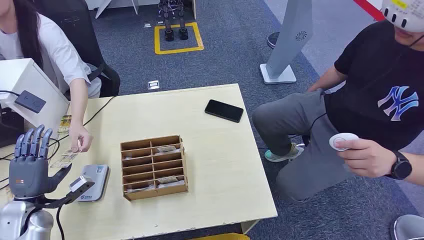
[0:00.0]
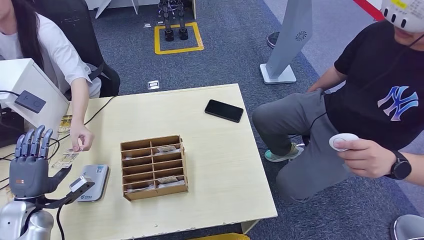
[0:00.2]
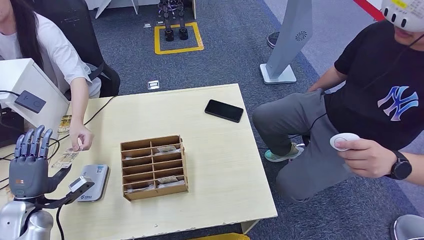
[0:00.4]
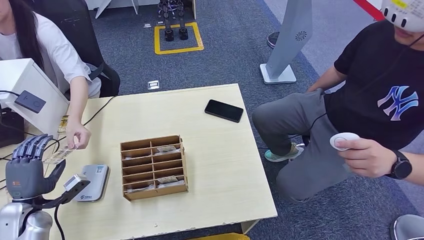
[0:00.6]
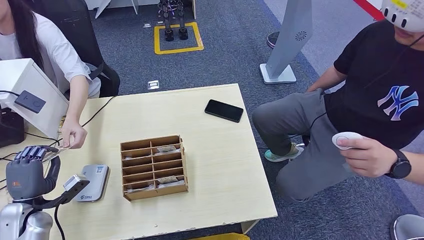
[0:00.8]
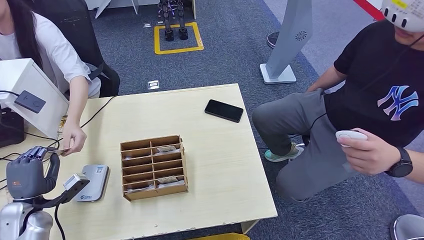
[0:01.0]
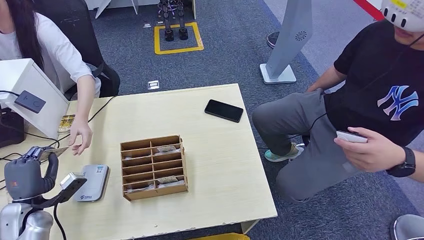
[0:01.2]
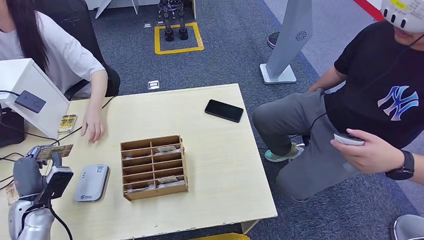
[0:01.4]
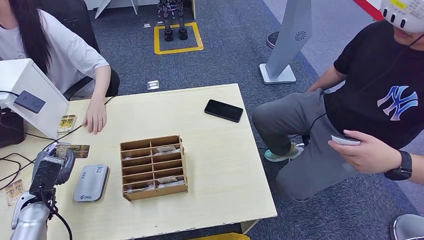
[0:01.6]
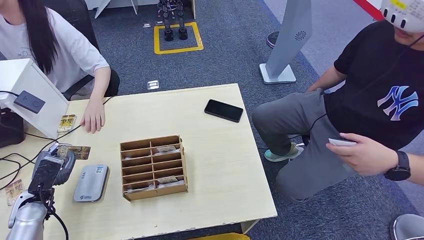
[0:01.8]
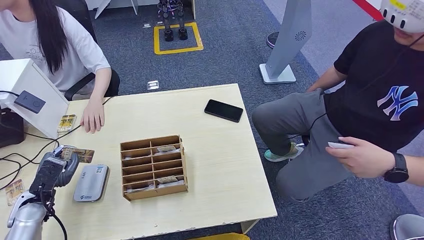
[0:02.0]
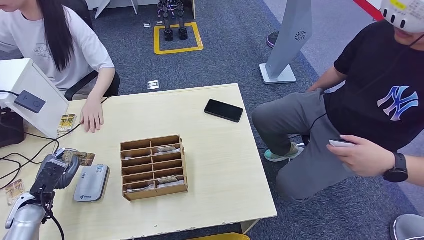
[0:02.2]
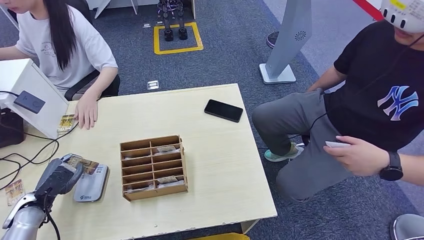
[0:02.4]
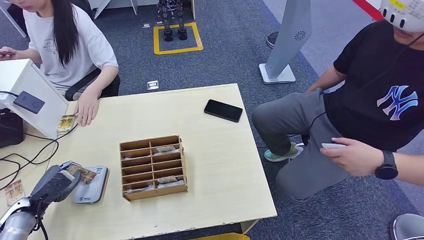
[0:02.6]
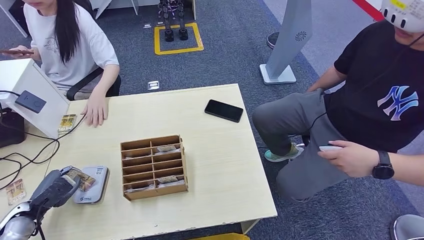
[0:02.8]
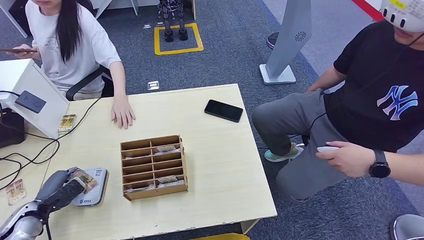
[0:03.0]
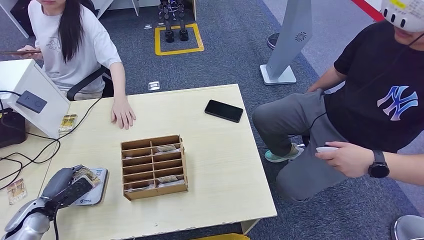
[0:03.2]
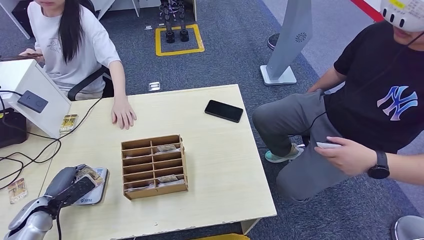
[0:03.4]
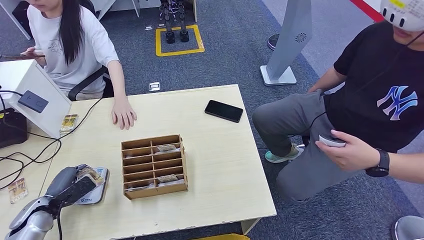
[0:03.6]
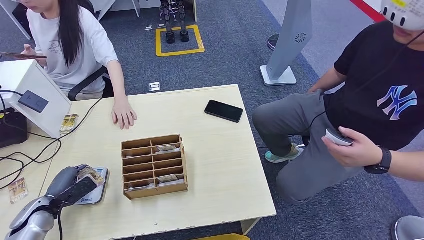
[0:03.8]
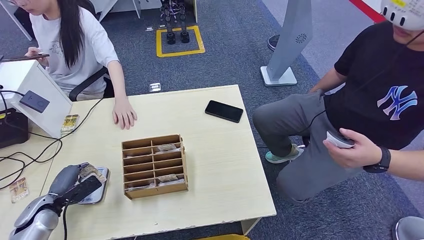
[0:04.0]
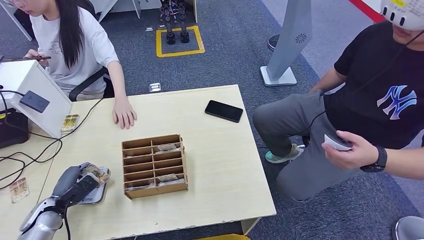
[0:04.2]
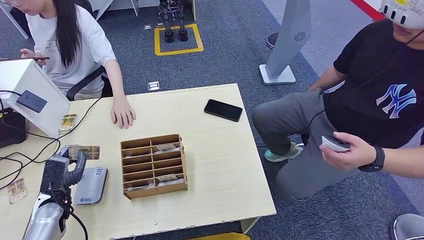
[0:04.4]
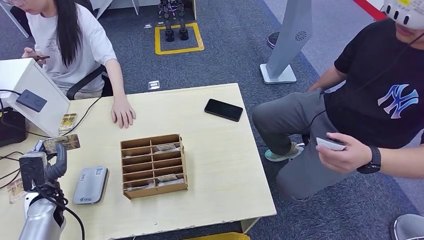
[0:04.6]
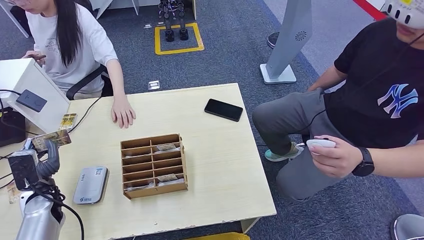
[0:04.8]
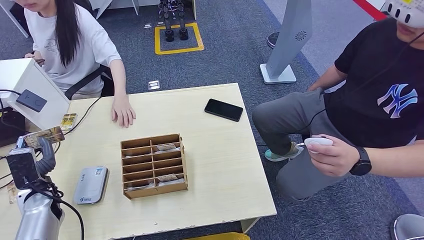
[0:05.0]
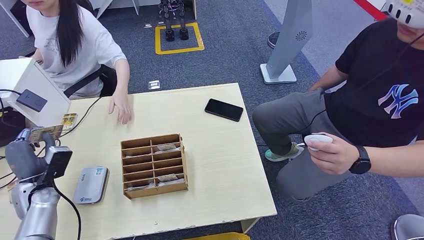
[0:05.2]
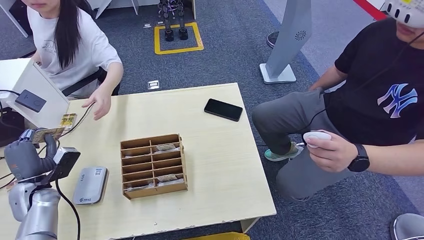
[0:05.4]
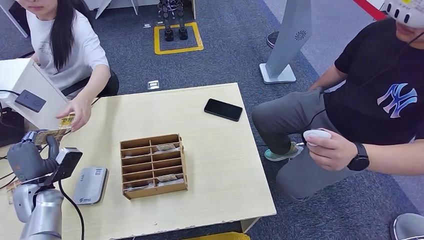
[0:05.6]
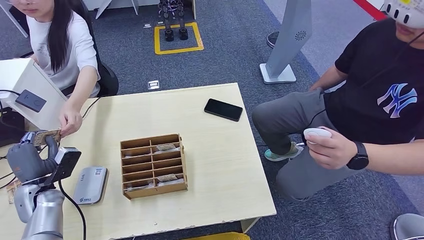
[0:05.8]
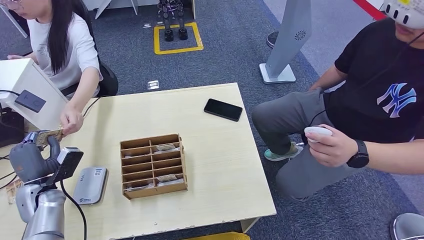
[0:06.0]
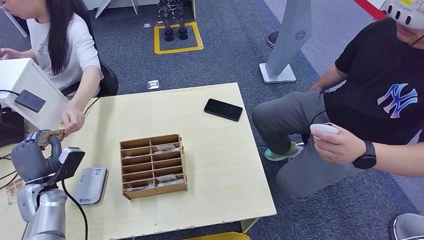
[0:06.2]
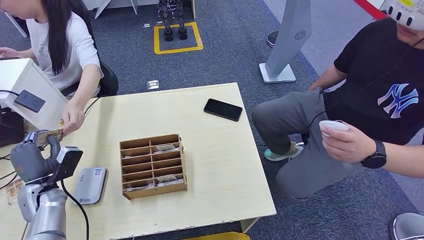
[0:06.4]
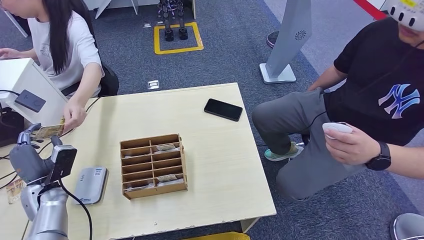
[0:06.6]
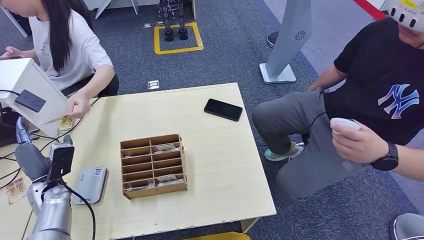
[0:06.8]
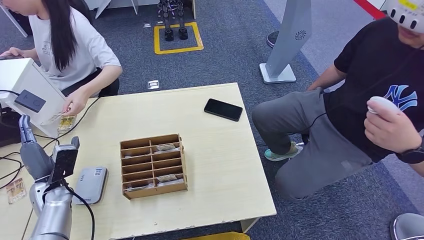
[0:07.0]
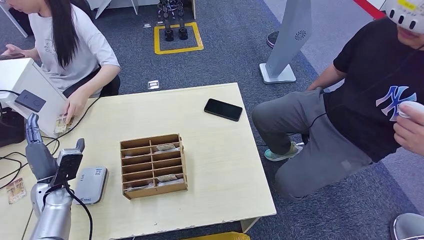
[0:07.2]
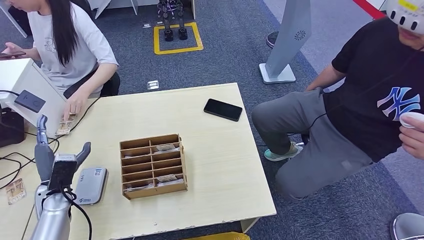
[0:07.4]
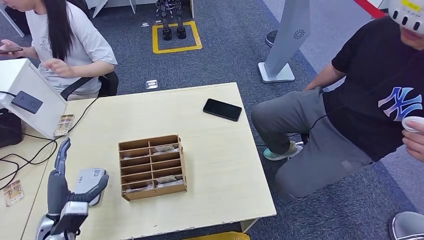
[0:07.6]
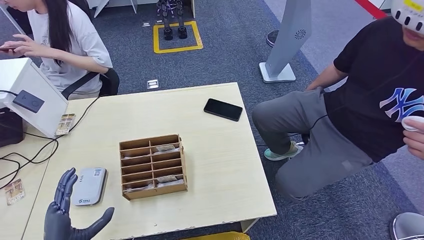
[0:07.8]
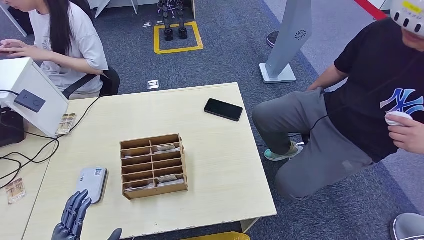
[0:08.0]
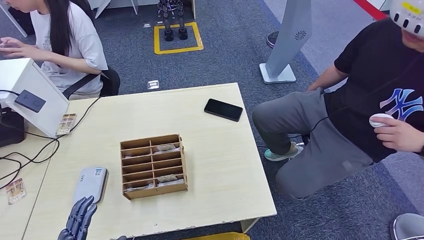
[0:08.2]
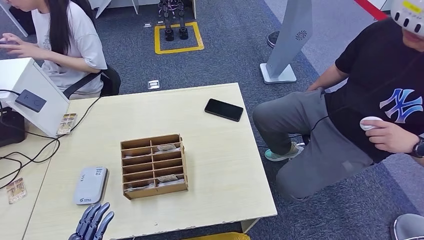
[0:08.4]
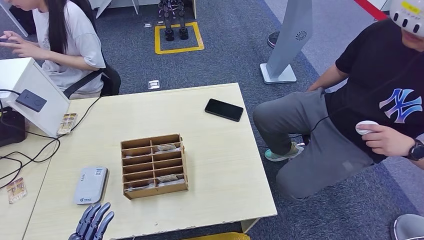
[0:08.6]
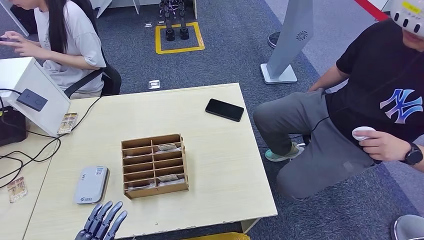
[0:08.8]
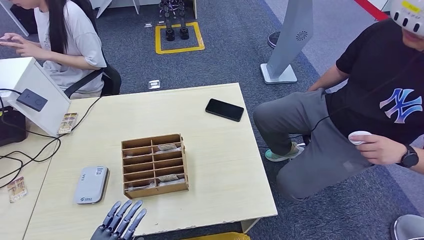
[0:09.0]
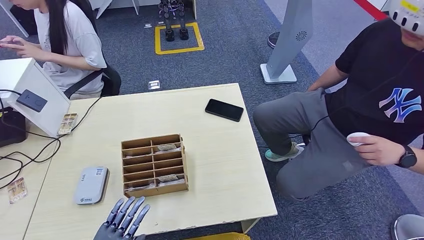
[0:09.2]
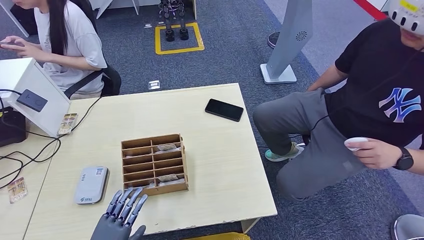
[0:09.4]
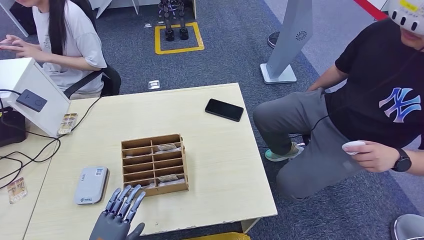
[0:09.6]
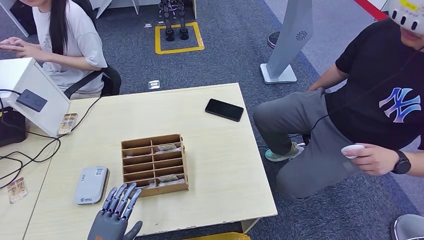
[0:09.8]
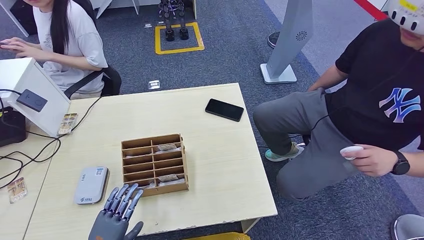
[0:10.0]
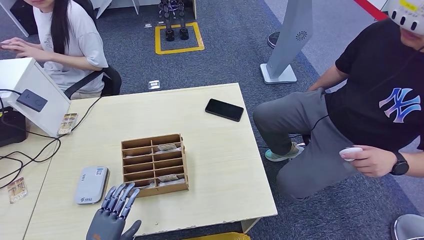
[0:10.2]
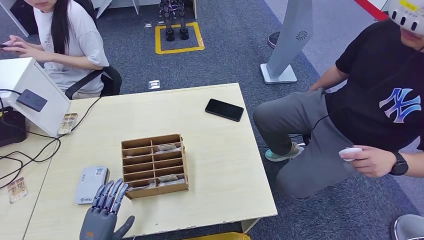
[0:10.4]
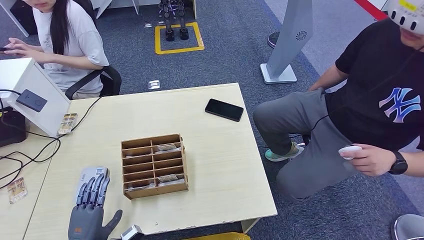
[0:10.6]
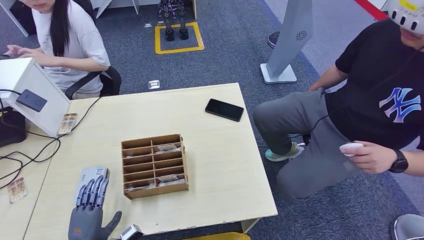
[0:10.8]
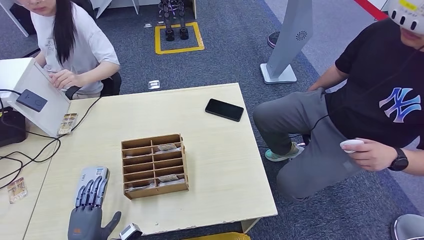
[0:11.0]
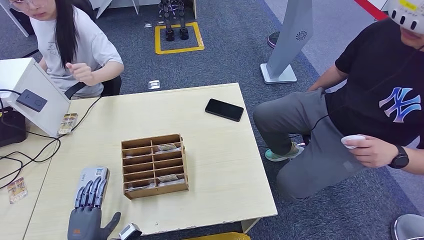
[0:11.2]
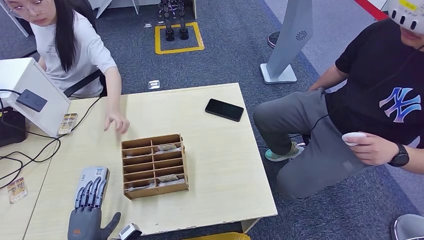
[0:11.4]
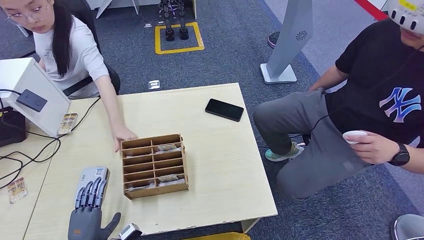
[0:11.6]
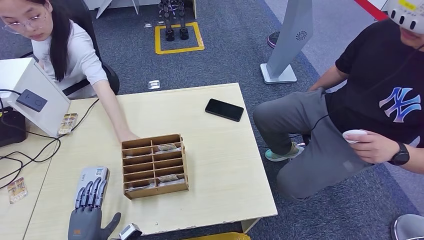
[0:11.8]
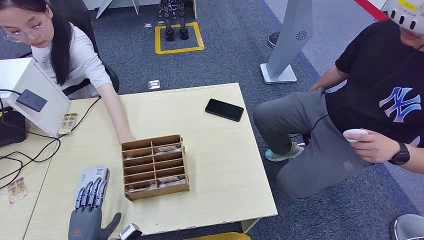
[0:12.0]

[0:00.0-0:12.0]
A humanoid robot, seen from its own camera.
Step, 0:00.0 to 0:01.6: Take the ID card from the person's hand.
Step, 0:02.0 to 0:03.8: Place the ID card on the card reader.
Step, 0:04.2 to 0:06.6: Hand the ID card to the person.
0:01.6 to 0:03.0: The left hand moves roughly 5 cm.
0:03.0 to 0:04.4: The left hand goes some 5 cm to the right.
0:04.4 to 0:06.0: The left hand shifts by approximately 5 cm.
0:09.0 to 0:10.4: The left hand moves forward, approximately 5 cm.
0:10.4 to 0:12.0: The hands make only small movements.

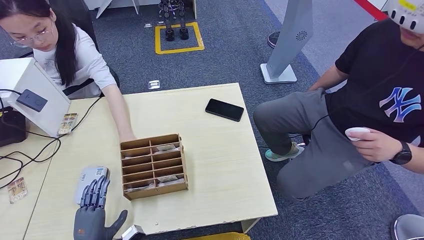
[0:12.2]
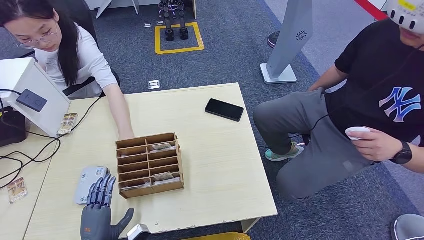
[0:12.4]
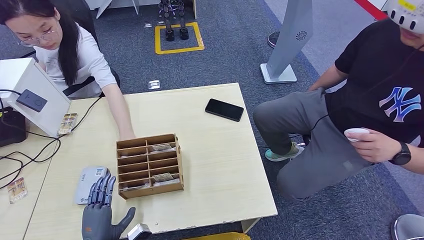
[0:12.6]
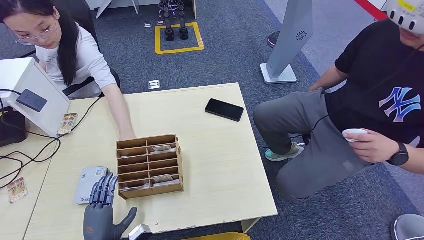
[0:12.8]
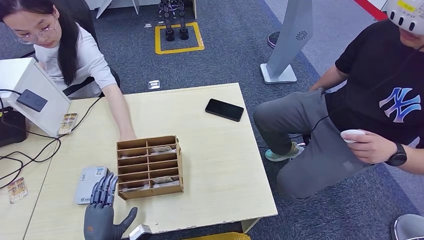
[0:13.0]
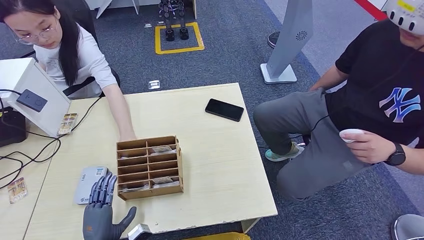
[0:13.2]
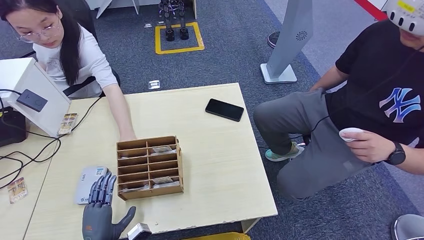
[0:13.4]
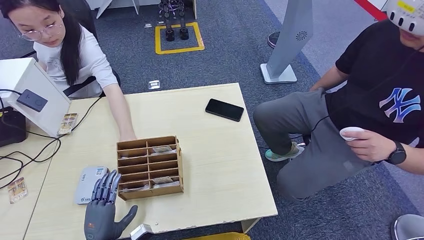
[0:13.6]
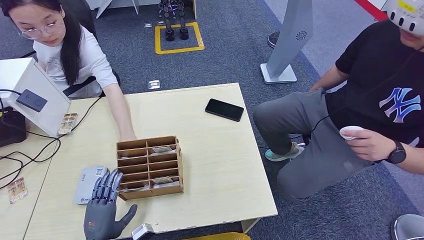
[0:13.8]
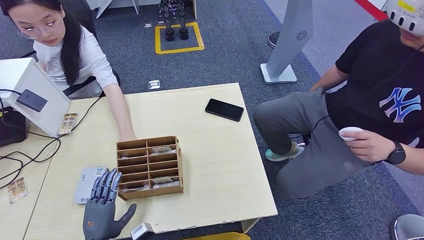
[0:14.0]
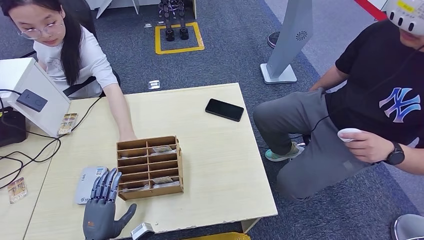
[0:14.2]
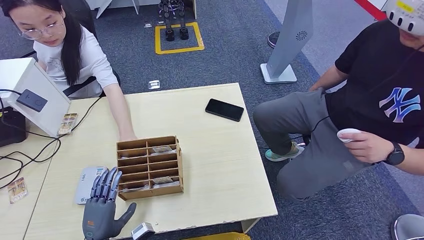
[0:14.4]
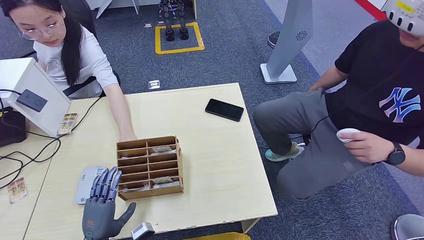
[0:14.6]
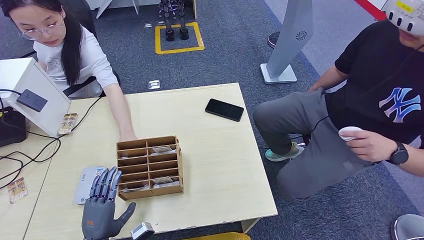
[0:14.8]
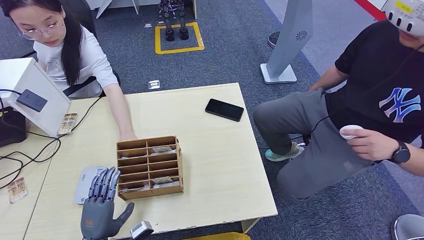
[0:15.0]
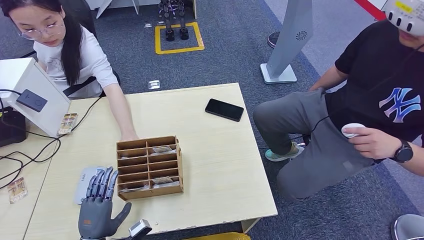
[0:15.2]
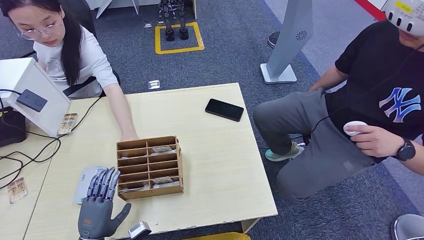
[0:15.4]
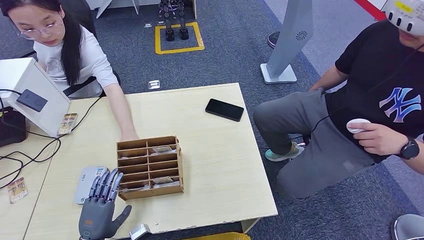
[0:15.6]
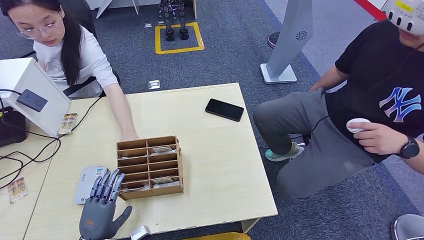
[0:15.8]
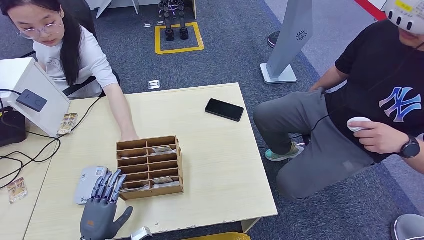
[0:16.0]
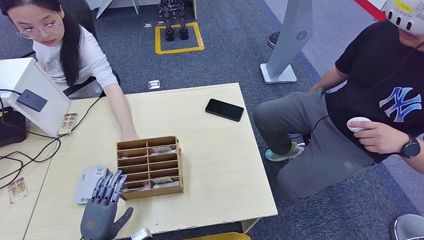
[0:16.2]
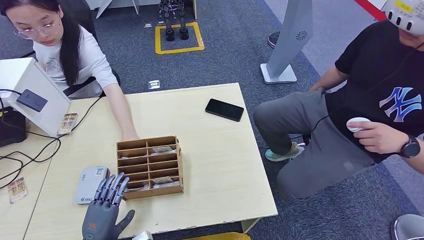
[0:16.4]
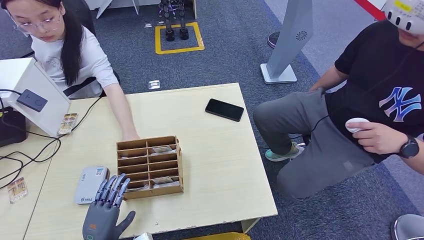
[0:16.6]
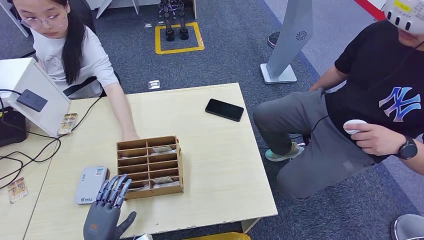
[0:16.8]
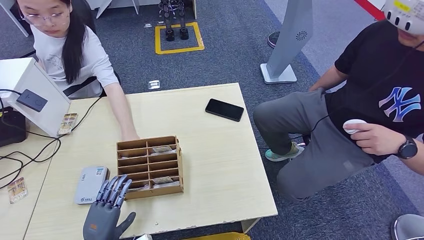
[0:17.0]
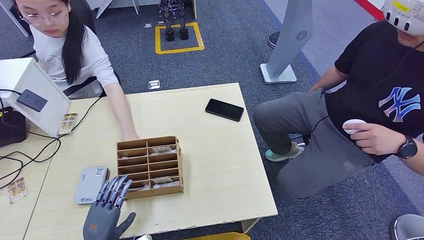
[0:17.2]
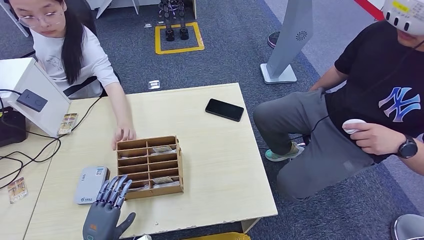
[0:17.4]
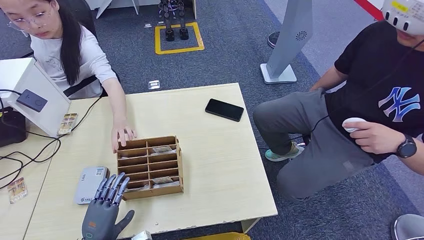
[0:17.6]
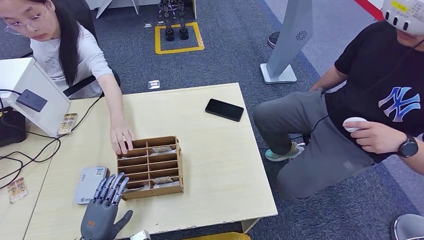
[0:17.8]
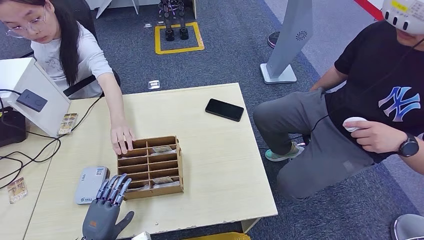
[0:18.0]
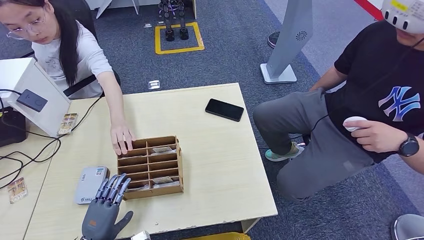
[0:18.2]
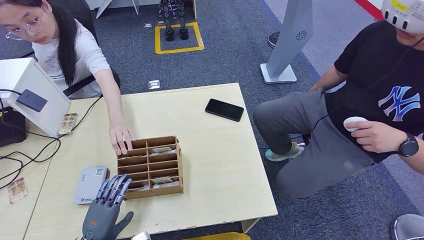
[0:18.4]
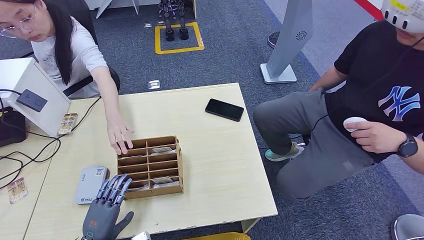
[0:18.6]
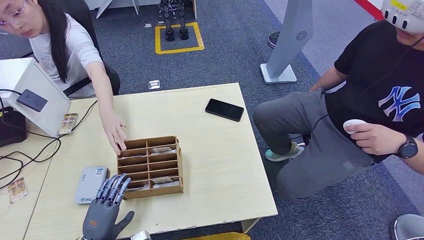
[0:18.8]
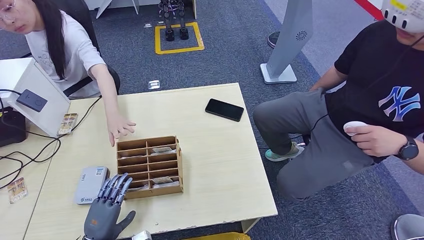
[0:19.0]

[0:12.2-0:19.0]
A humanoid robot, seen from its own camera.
0:12.2 to 0:16.2: The hands stay close to where they were, moving slightly.
0:16.2 to 0:17.6: Both hands stay about where they are.
0:17.6 to 0:19.0: Both hands stay put.
